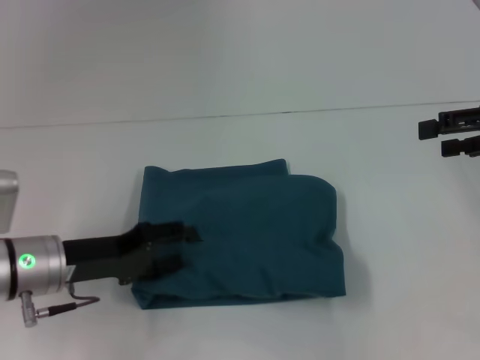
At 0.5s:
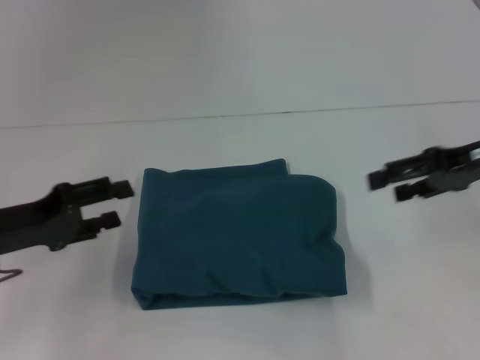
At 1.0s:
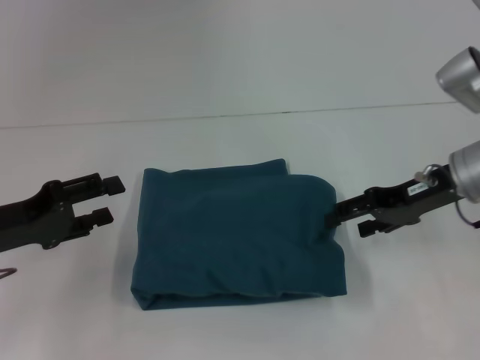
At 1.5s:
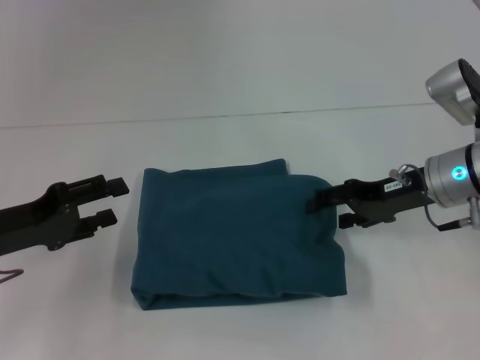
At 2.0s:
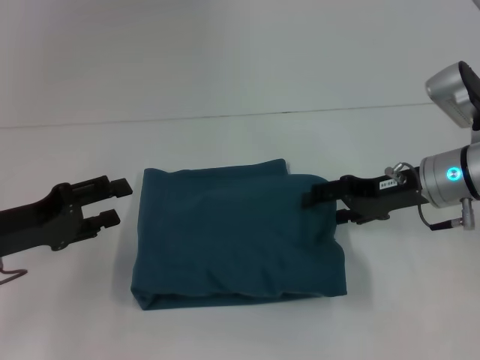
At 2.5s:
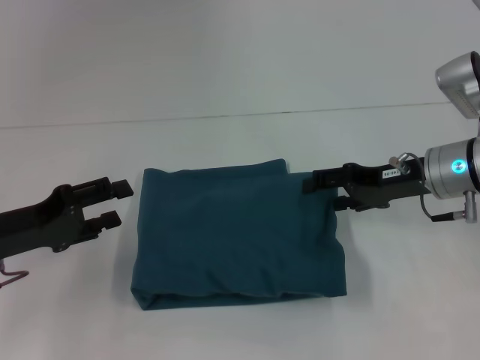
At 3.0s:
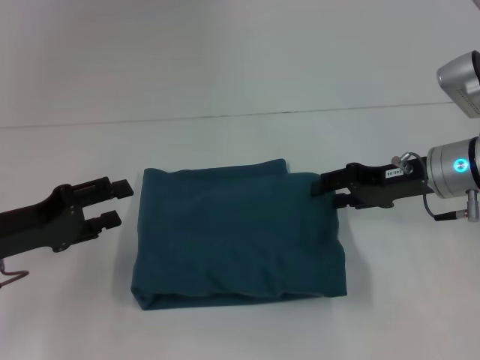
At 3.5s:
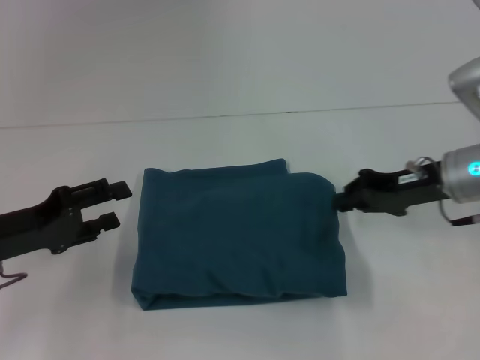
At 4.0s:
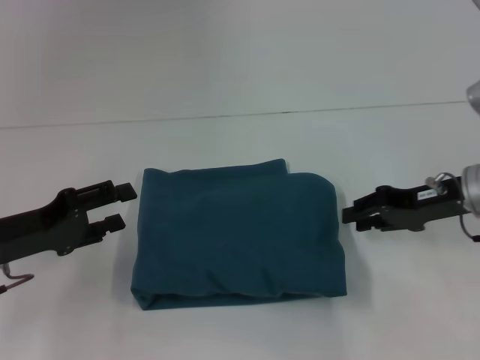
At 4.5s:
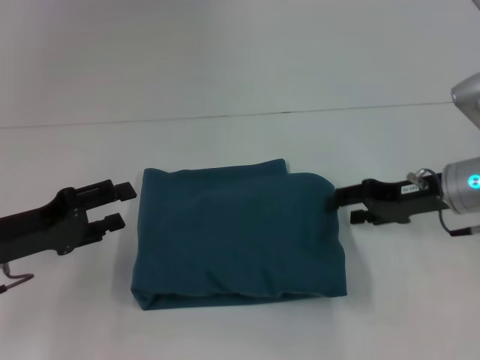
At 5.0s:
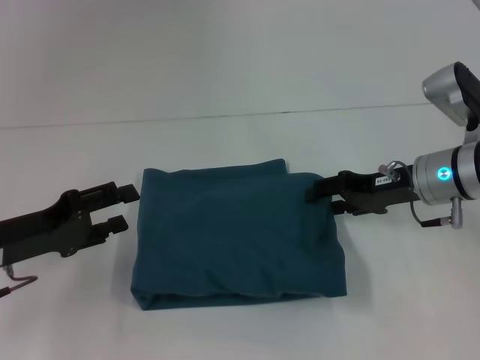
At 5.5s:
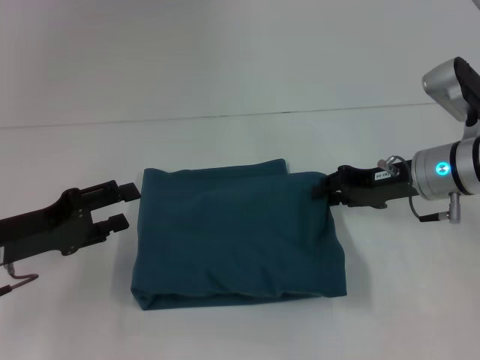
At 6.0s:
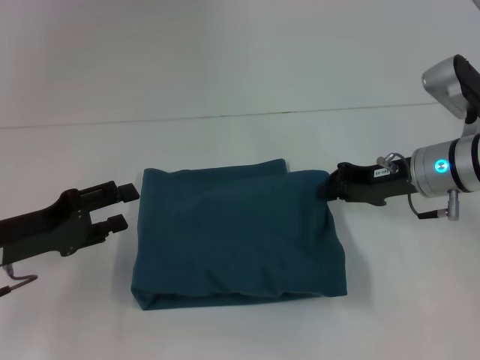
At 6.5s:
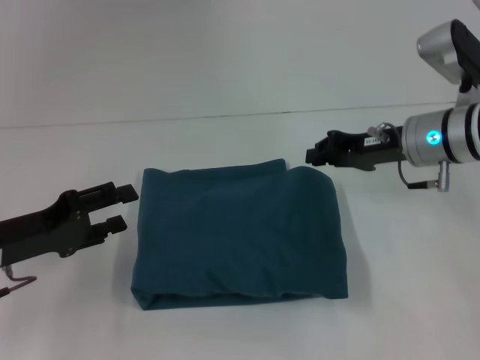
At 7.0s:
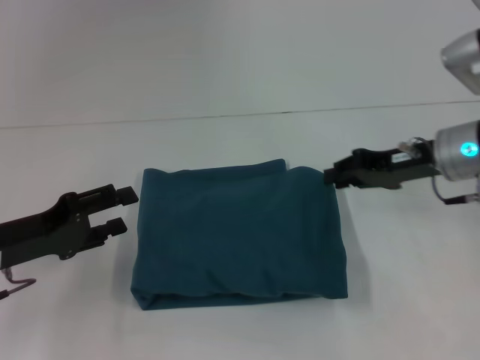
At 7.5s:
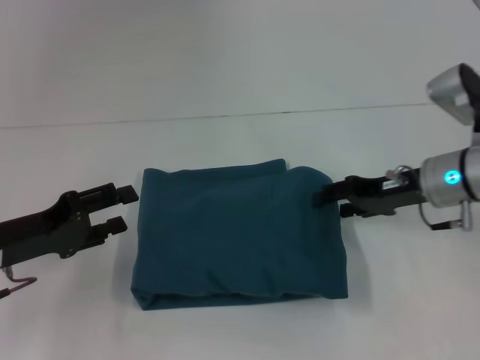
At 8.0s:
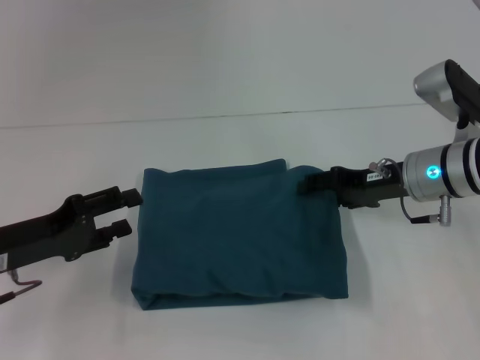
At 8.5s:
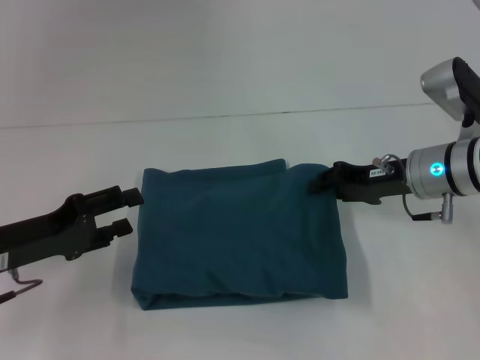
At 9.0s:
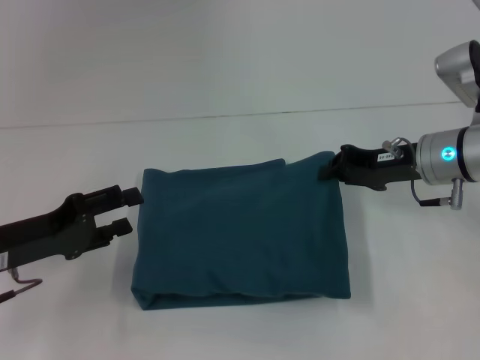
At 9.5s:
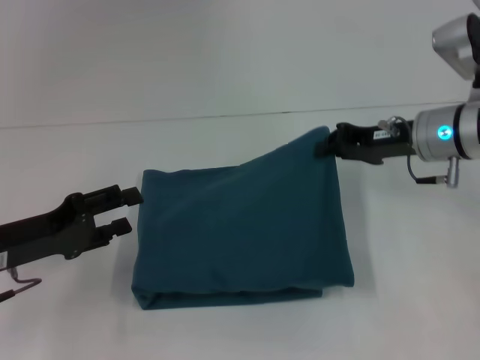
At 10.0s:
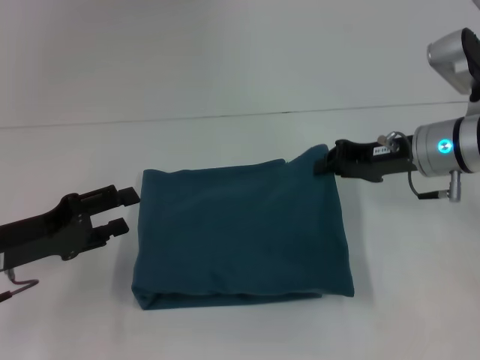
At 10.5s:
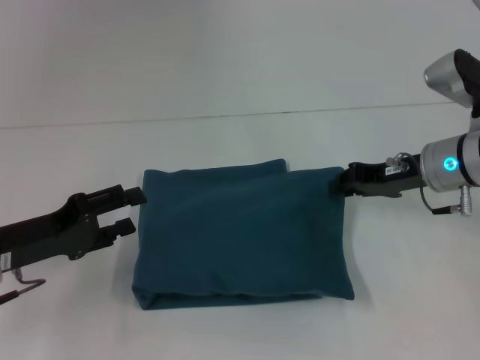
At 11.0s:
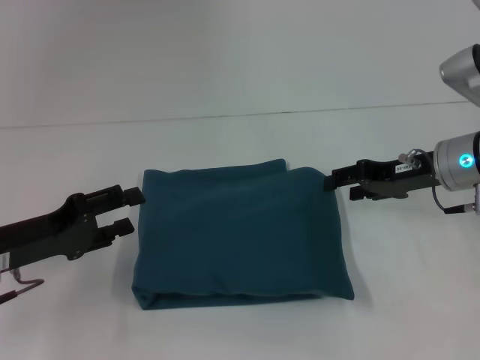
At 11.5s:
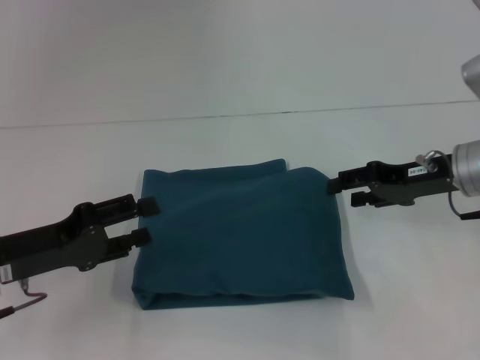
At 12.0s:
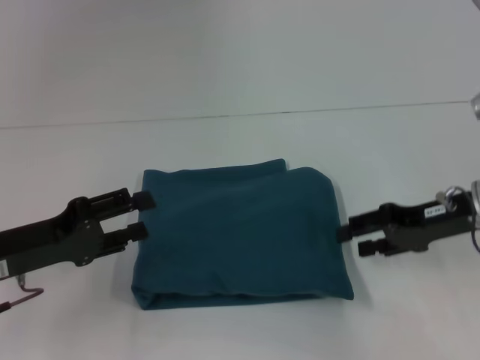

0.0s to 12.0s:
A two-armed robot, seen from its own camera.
0.0s to 2.0s: The right gripper is displaced to the left and downward by approximately 15 cm; the left gripper shifts about 5 cm to the left.
2.0s to 4.0s: The right gripper closes.
4.0s to 6.0s: The right gripper shifts by approximately 5 cm, and opens and closes again.
6.0s to 8.0s: The right gripper opens its fingers.
8.0s to 10.0s: The right gripper closes up.
10.0s to 12.0s: The right gripper heads backward, covering roughly 5 cm, and opens its fingers.

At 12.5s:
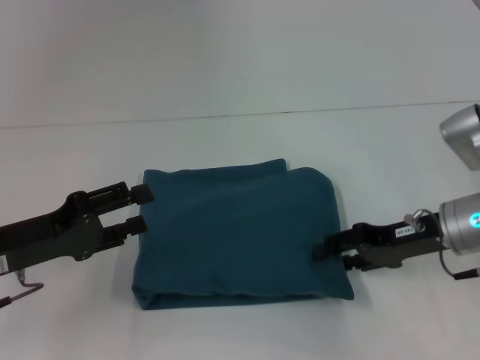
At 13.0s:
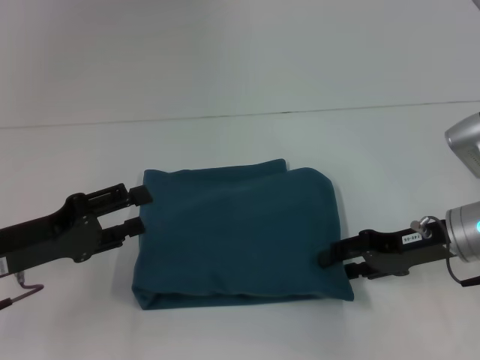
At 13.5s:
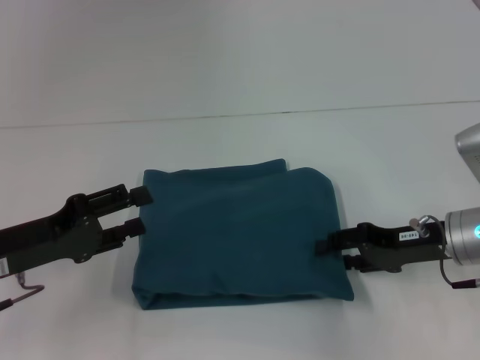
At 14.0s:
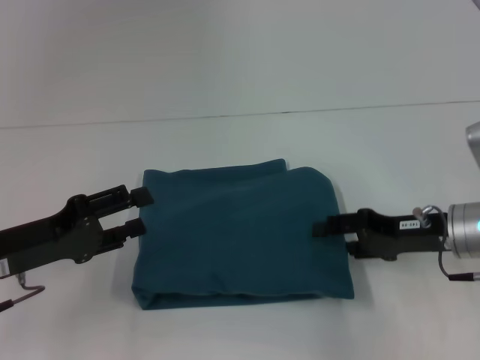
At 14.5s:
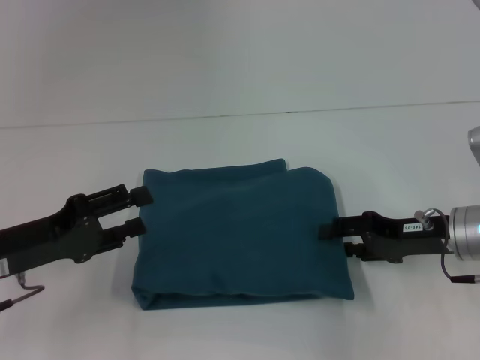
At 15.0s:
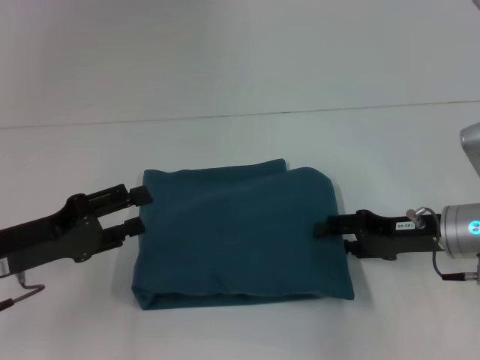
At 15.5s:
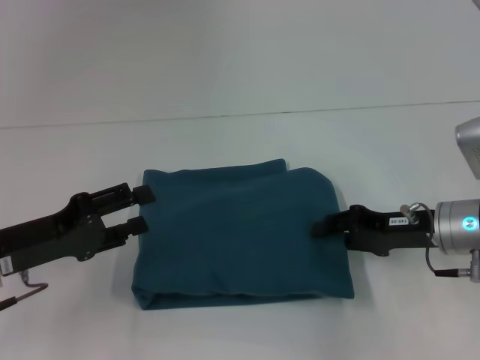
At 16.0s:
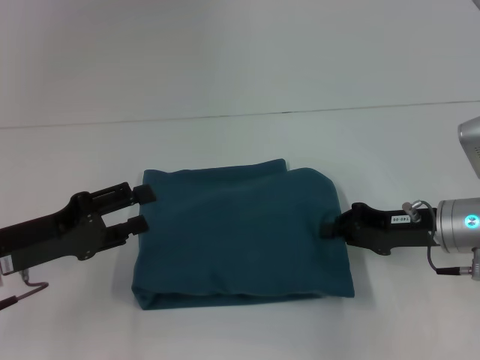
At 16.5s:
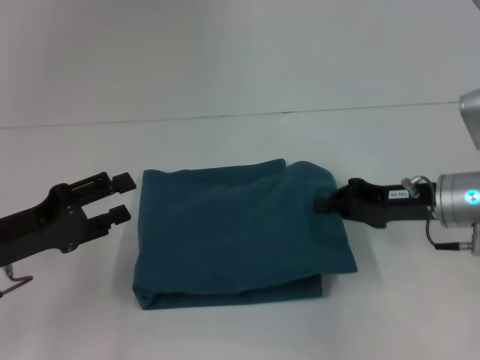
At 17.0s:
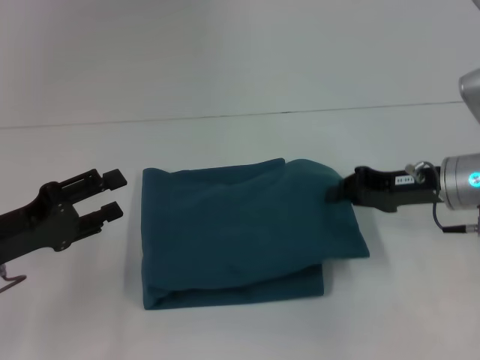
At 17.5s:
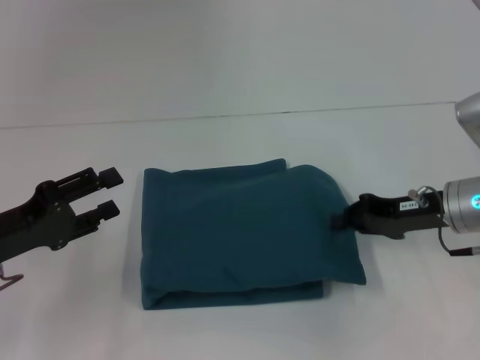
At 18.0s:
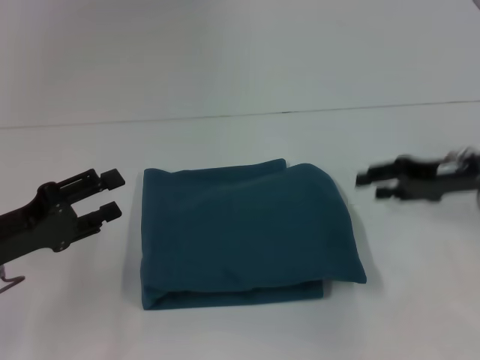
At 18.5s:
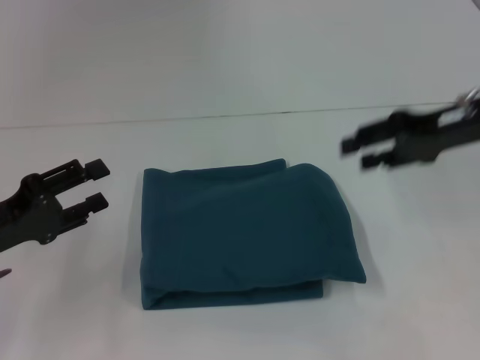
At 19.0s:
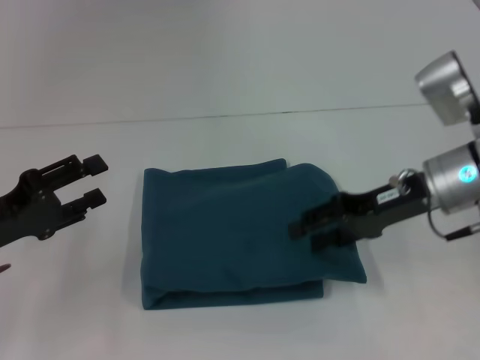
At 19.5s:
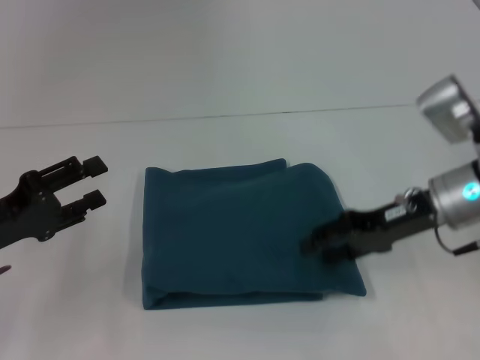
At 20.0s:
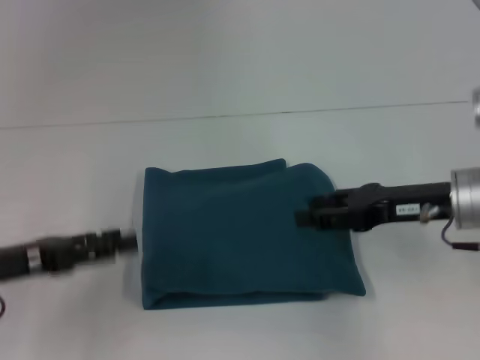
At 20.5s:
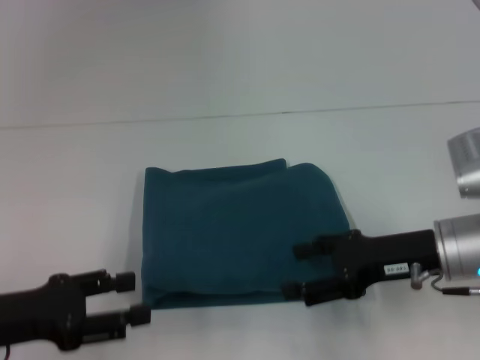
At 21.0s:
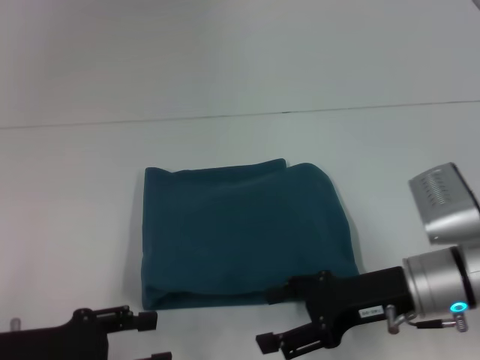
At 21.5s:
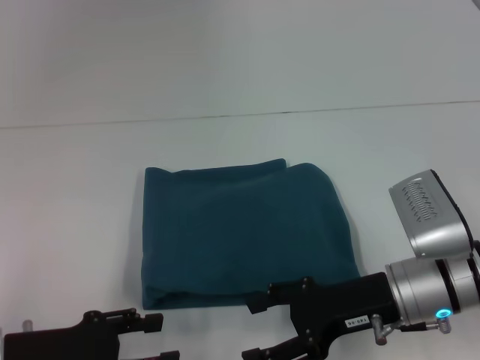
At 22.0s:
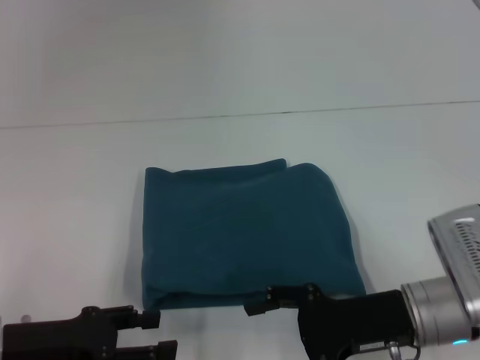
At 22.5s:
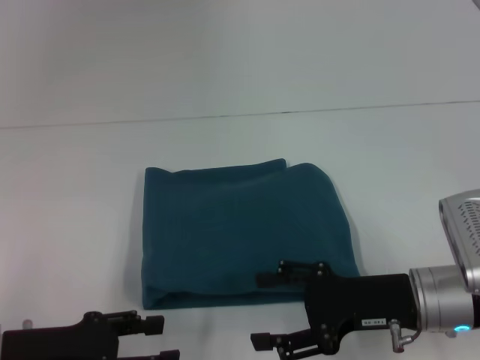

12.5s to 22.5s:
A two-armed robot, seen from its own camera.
12.5s to 14.5s: There are only small adjustments of the grippers.
14.5s to 16.5s: The right gripper closes its fingers.
16.5s to 18.5s: The right gripper shifts some 10 cm upward, and opens up.
18.5s to 20.5s: The right gripper moves downward, backward and to the left, approximately 15 cm.
20.5s to 22.5s: The right gripper shifts by approximately 5 cm.

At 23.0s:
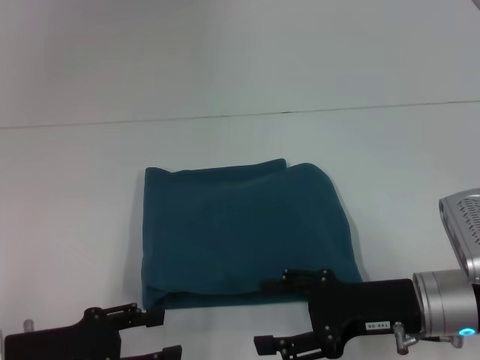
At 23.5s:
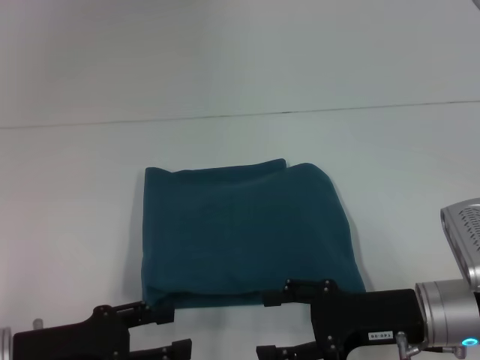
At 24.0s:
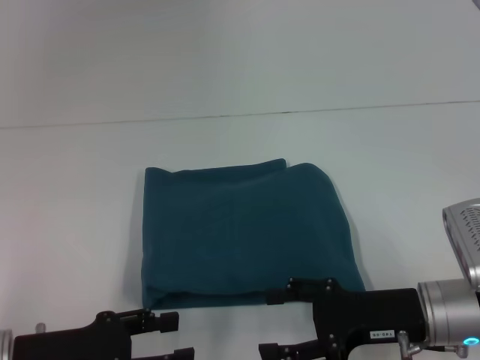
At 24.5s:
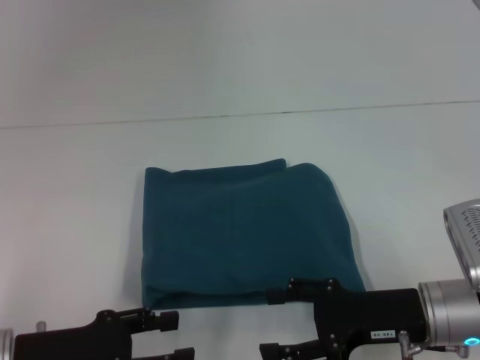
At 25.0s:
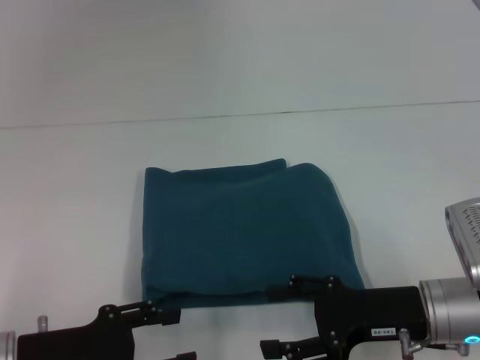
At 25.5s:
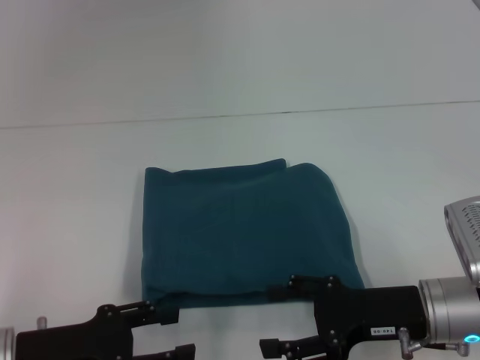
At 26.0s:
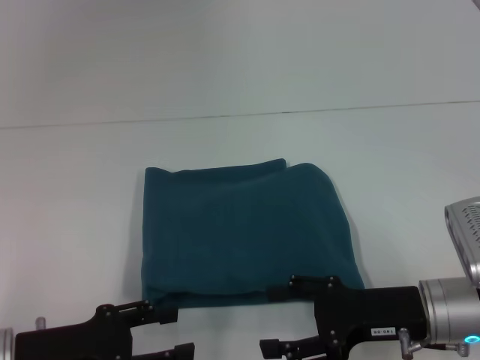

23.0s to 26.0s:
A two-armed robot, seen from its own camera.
23.0s to 26.0s: The grippers stay close to where they were, moving slightly.
